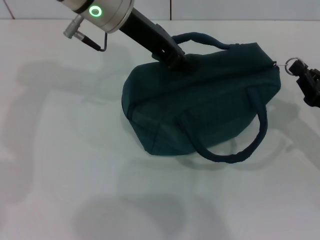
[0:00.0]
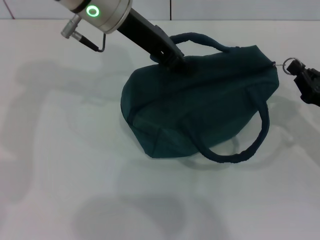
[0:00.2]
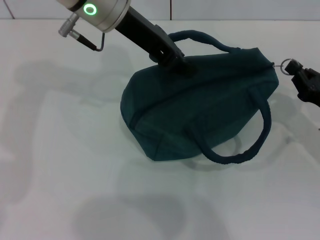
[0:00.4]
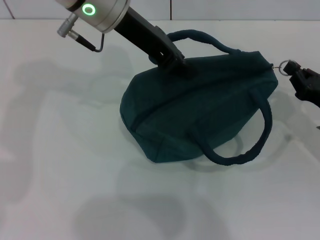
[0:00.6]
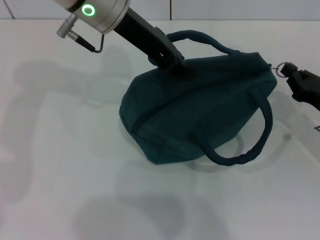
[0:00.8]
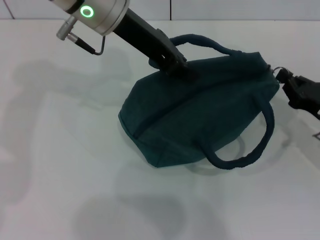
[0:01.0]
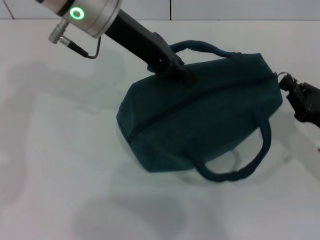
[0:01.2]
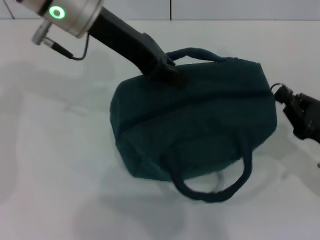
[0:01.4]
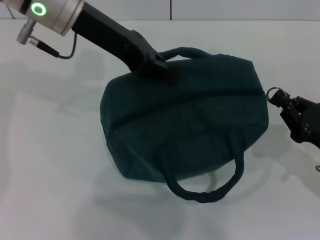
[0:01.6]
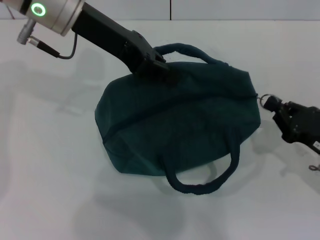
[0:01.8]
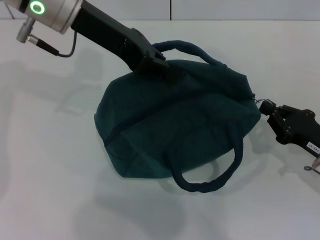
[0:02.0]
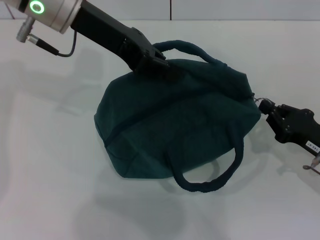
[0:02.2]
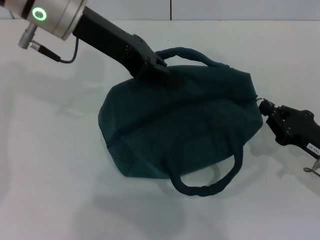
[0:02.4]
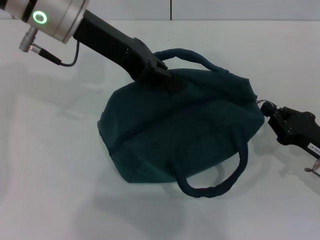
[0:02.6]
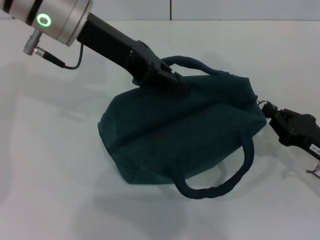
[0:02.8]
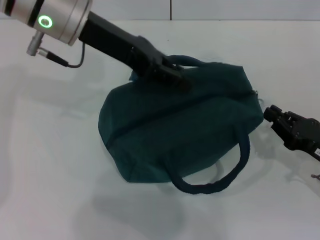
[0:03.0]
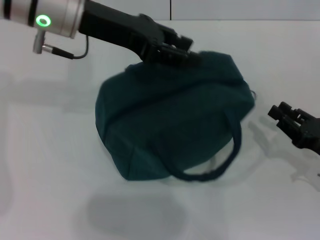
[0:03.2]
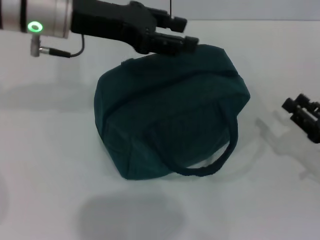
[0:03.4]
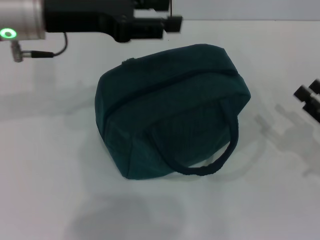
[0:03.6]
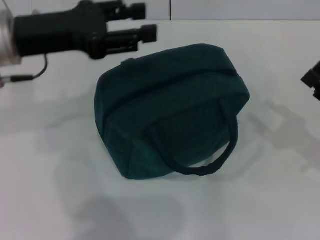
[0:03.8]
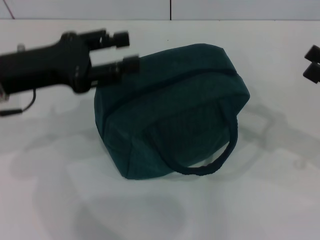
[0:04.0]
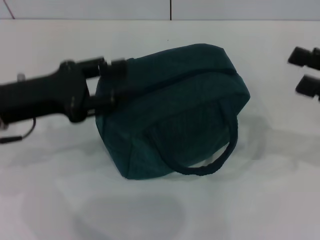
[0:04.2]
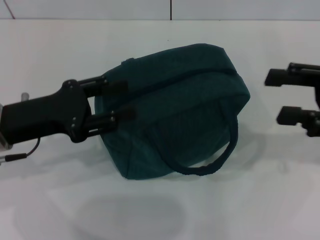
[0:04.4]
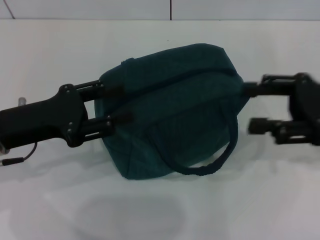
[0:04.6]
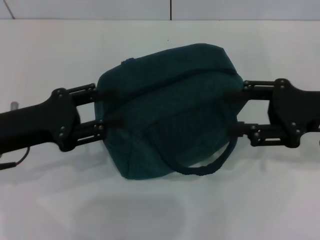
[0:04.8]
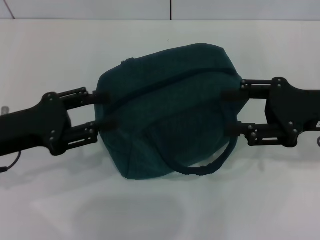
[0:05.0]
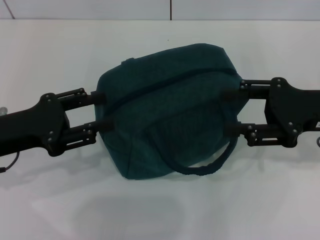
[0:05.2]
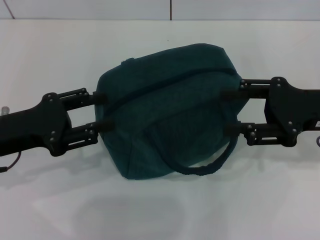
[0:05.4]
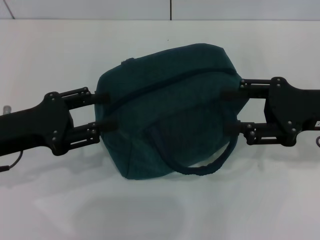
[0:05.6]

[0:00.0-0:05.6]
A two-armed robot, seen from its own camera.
Step, 0:00.0 to 0:02.8: Zip up the lunch bag with your right hand.
0:01.4 to 0:02.8: The grippers stay close to where they were, moving slightly.
0:02.8 to 0:04.2: The left gripper heads to the left, backward and downward, covering about 15 cm, and opens, while the right gripper travels upward by approximately 10 cm, and opens.
0:04.2 to 0:05.6: The left gripper moves some 5 cm. The right gripper moves to the left, approximately 5 cm.
